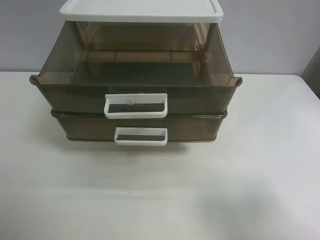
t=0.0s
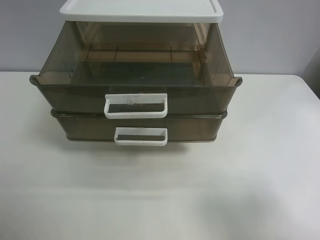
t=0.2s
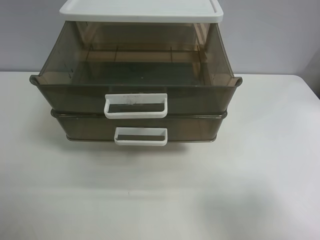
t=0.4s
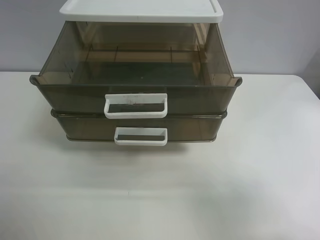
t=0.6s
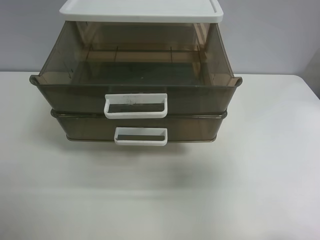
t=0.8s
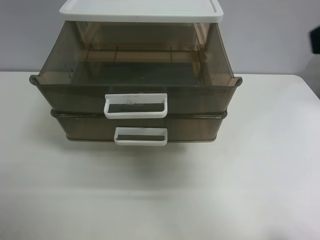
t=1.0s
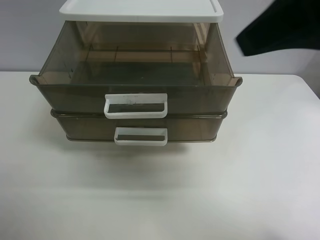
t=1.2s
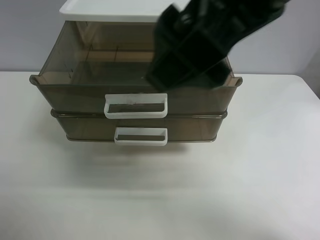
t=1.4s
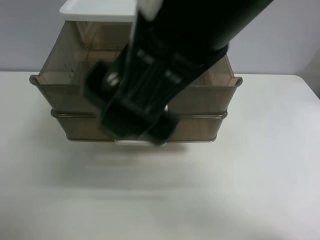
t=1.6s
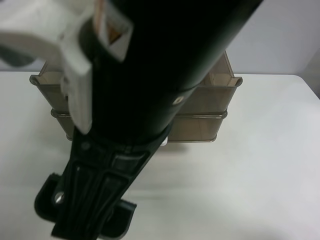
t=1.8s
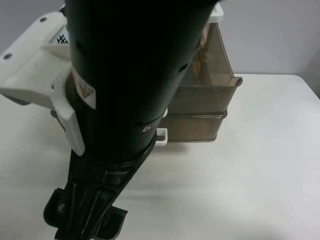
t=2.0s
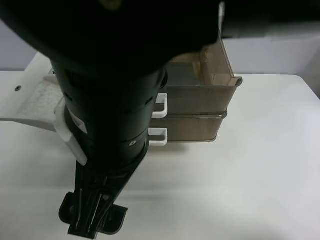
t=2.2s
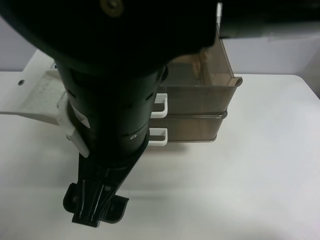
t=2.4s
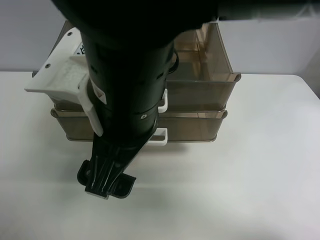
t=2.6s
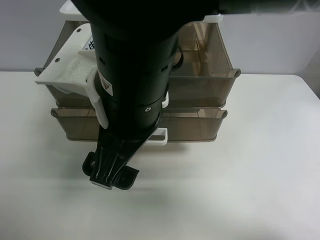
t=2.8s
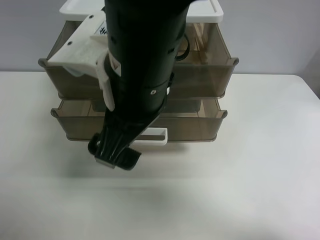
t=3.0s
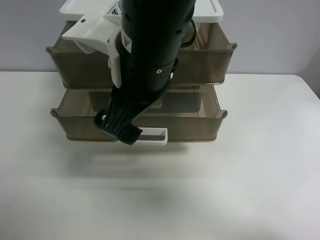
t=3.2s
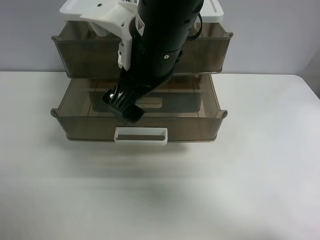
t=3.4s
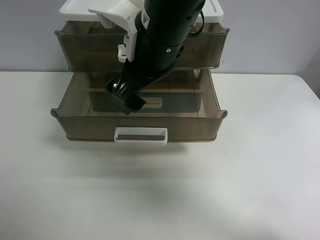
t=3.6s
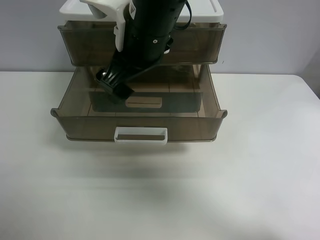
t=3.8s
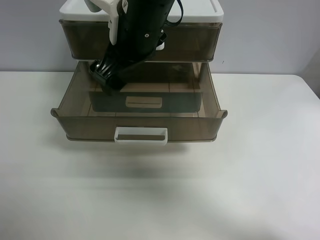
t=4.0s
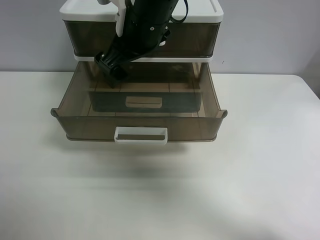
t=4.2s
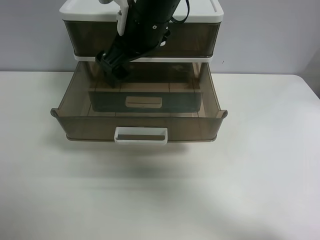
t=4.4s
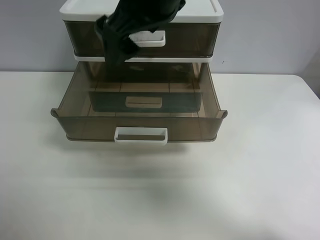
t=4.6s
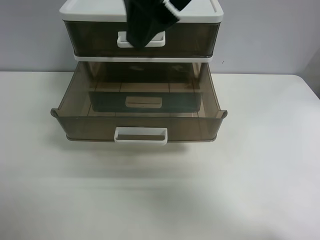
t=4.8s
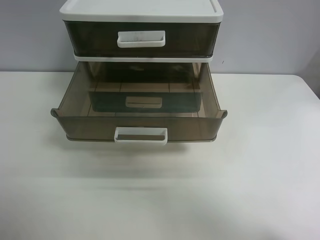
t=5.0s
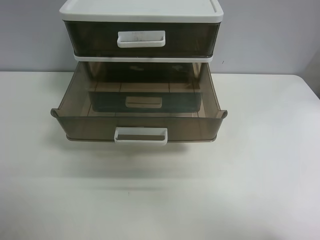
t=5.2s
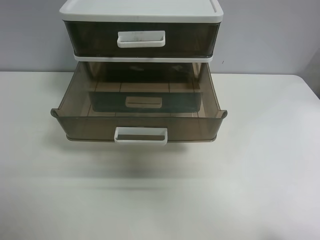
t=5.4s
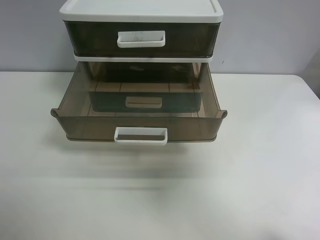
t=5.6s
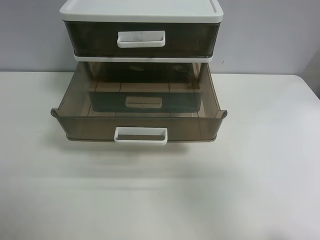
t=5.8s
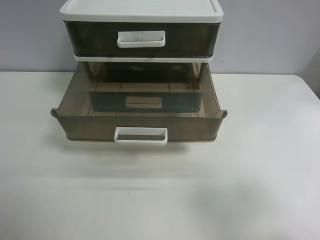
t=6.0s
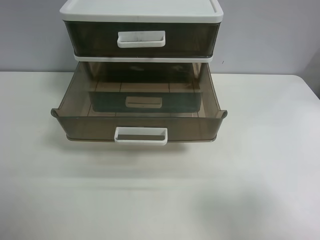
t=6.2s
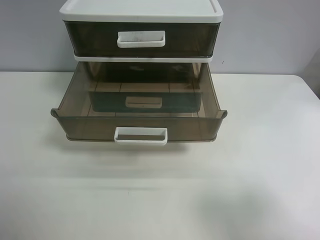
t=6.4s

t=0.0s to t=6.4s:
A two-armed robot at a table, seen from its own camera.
Task of the whole recording: close the top drawer.
Step, t=0.0s to t=2.4s: Use the right gripper to touch the topmost layer of the storage cabinet.
Step, t=2.6s to t=4.4s: Push the top drawer closed.
t=0.0s to t=1.6s: The right gripper goes roughly 30 cm to the left and forward.
t=1.6s to t=3.2s: The right gripper travels forward and downward by roughly 10 cm.
t=3.2s to t=4.8s: The right gripper shifts roughly 15 cm upward and to the right.
t=4.8s to t=6.4s: The right gripper shifts roughly 35 cm to the right, backward and downward.
